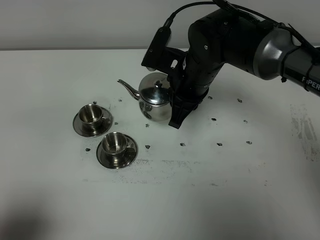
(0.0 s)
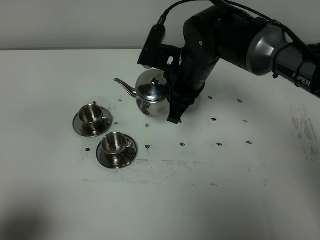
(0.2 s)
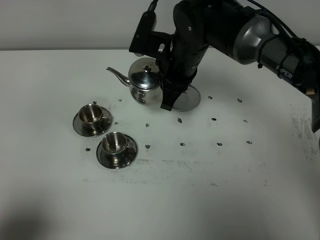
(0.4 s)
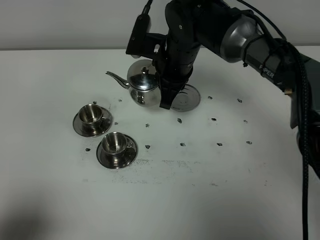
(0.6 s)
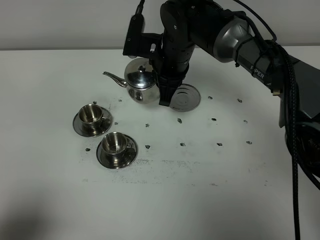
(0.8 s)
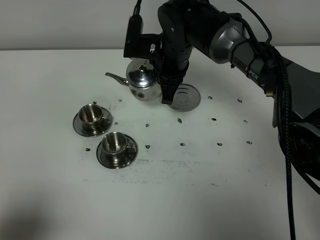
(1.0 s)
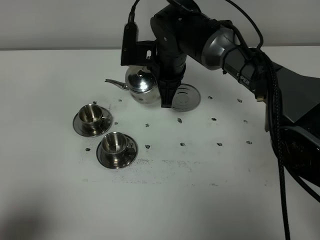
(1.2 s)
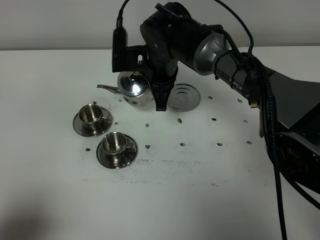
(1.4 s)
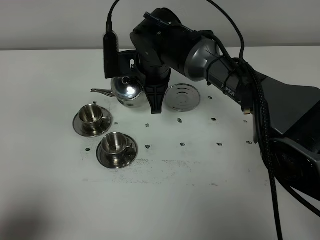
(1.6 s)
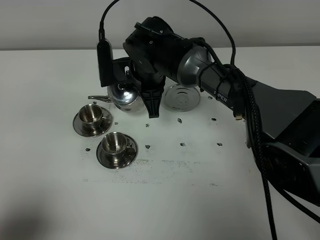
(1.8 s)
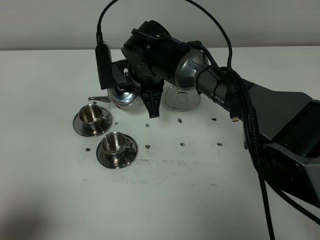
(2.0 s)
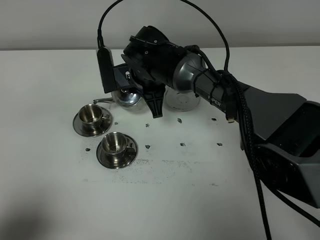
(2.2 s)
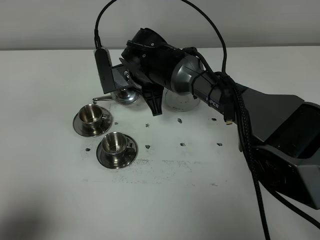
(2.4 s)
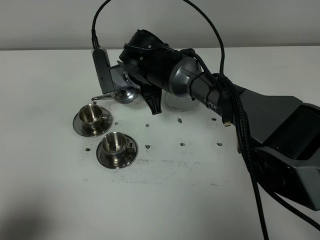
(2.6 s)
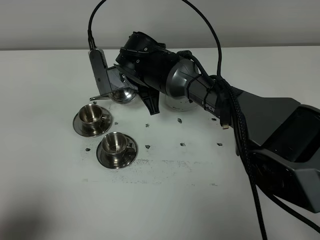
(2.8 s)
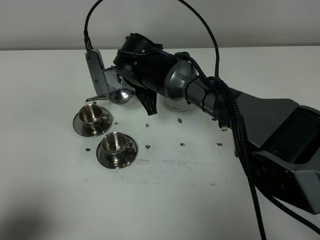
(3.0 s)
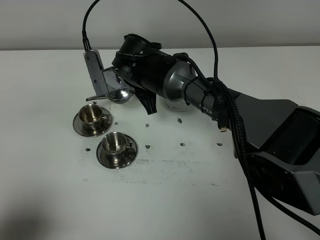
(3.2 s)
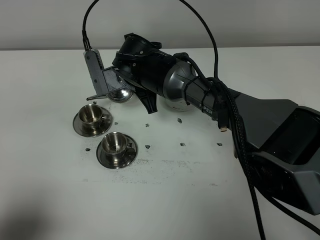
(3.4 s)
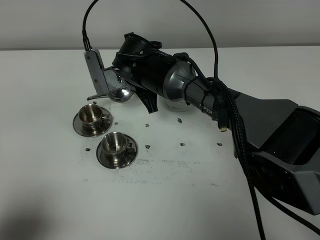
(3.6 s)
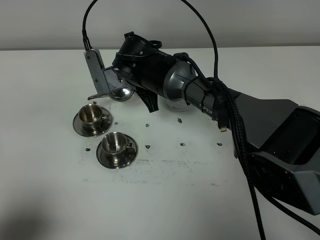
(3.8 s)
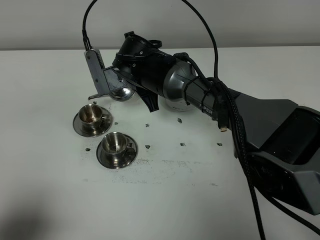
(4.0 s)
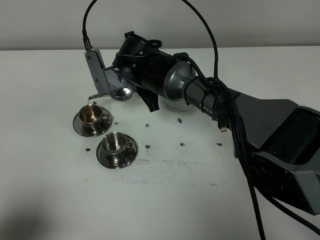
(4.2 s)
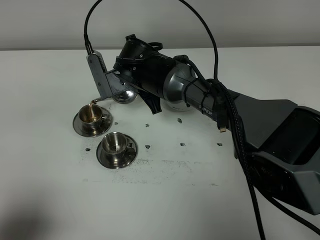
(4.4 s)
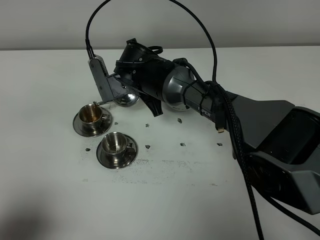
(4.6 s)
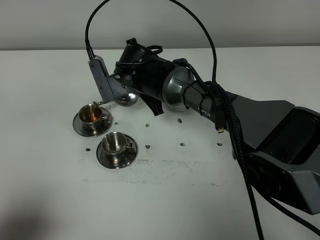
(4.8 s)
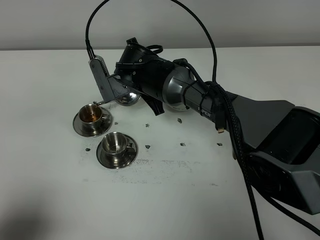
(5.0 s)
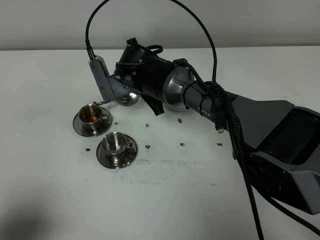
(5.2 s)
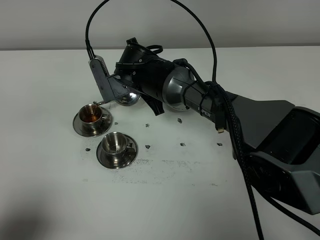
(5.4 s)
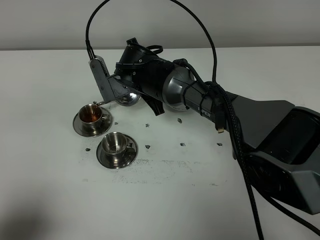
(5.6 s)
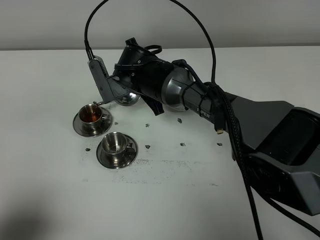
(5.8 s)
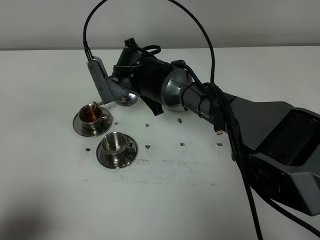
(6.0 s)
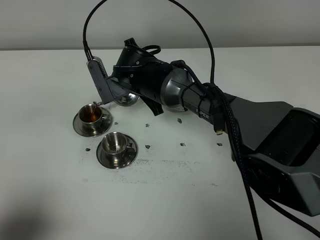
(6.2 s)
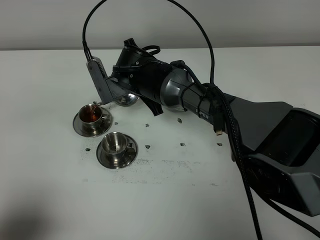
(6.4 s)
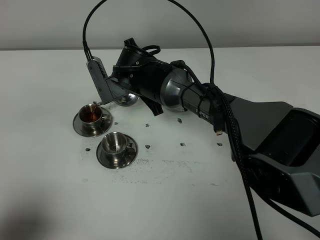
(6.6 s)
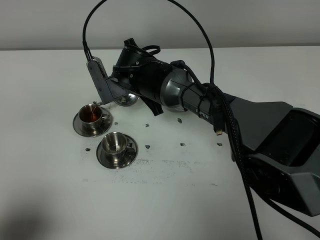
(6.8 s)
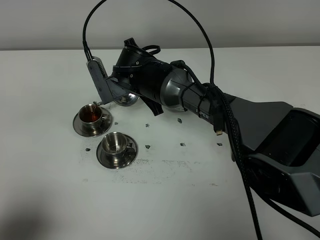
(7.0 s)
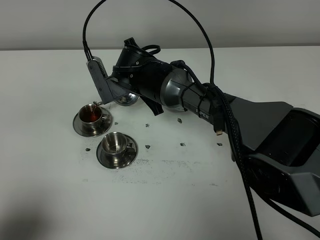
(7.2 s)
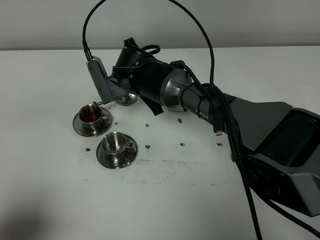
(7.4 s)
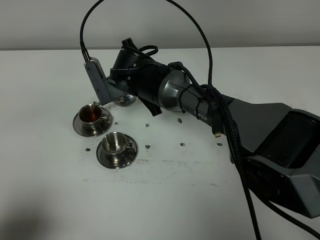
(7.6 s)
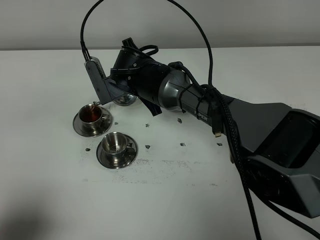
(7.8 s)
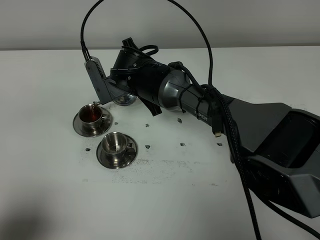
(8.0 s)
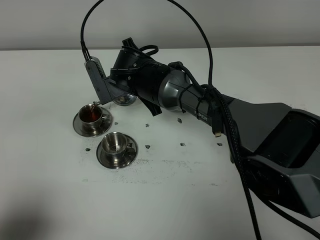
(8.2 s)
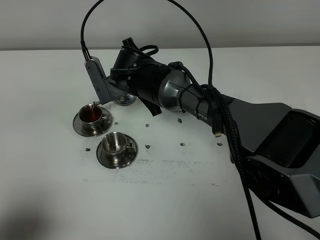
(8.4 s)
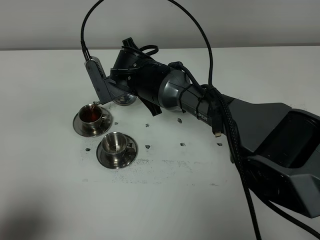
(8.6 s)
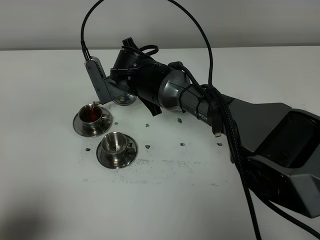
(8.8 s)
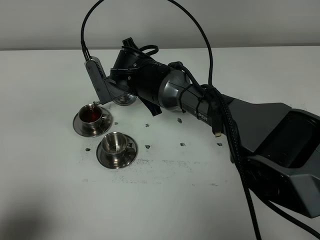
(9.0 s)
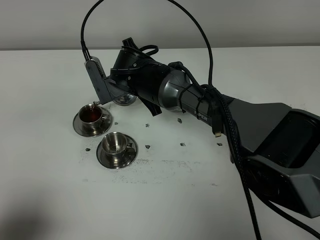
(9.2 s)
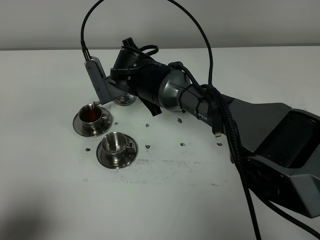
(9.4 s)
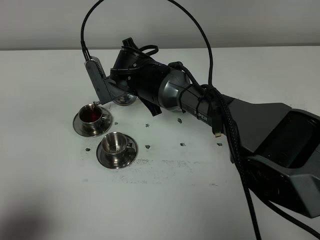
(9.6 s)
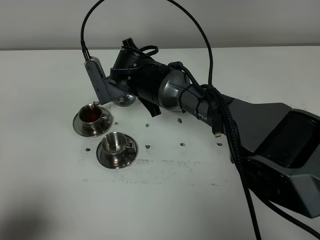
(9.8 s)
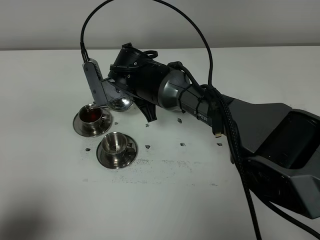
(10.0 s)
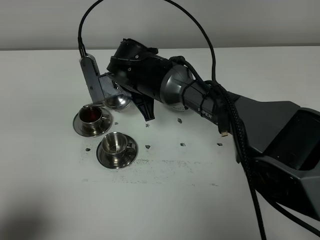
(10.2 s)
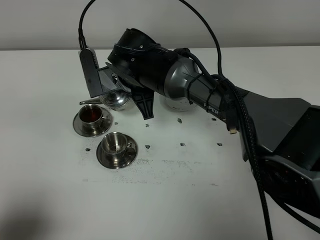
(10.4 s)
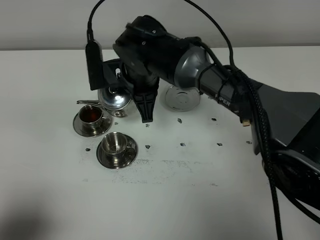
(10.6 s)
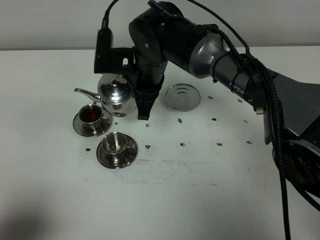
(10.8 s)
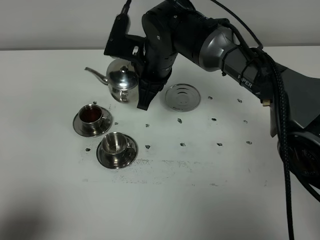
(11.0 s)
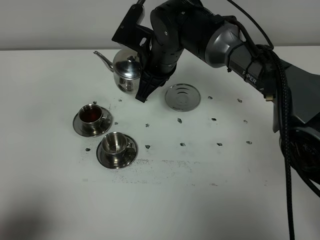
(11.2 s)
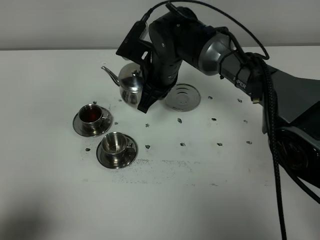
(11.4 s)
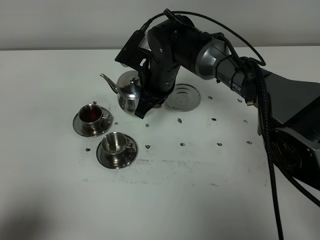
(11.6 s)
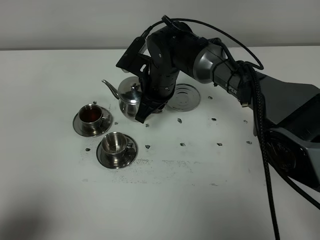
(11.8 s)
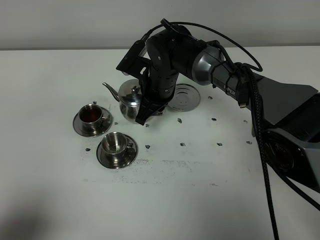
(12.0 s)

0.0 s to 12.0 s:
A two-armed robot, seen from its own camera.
Task of the whole recording: grasp the stainless steel teapot and pour the tea into the two stainless steel teacups one by one, put the stainless steel teapot back in its original place.
0.0 to 1.6 s: The right gripper is displaced to the left by some 5 cm.
3.0 to 4.4 s: Neither gripper changes place.
4.4 to 9.0 s: Neither gripper changes place.
9.0 to 10.4 s: The grippers make only small movements.
10.4 to 12.0 s: The right gripper heads downward, covering roughly 5 cm.

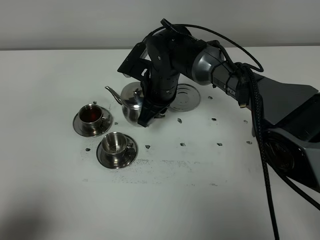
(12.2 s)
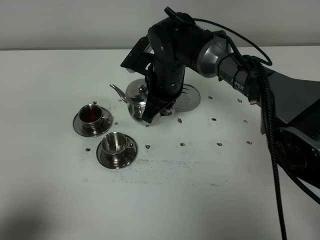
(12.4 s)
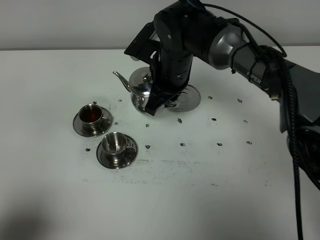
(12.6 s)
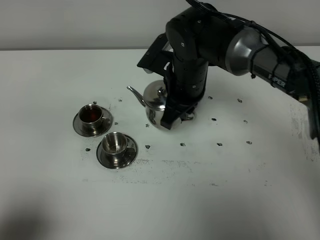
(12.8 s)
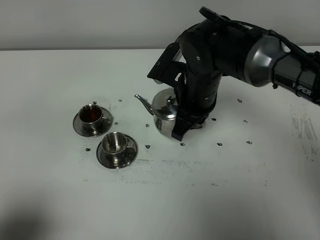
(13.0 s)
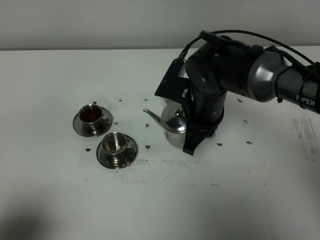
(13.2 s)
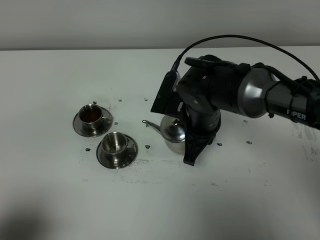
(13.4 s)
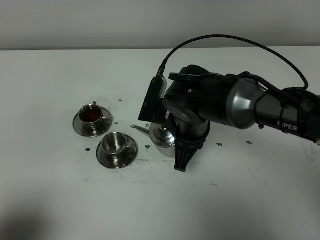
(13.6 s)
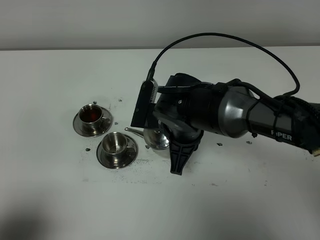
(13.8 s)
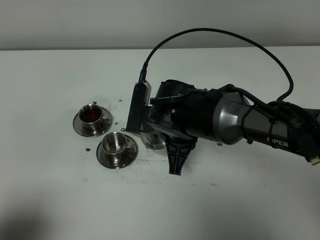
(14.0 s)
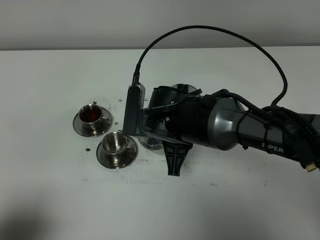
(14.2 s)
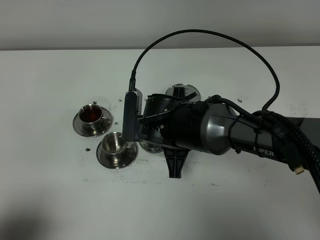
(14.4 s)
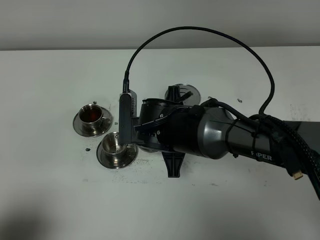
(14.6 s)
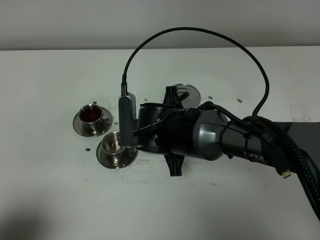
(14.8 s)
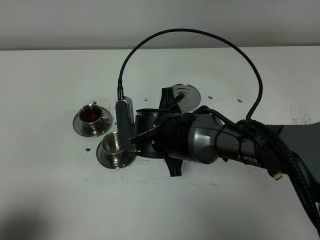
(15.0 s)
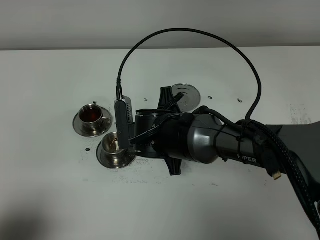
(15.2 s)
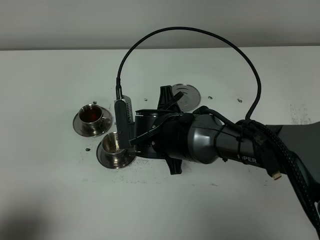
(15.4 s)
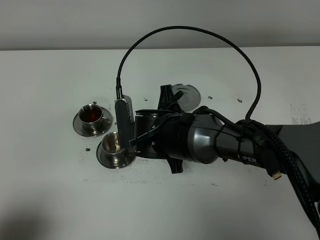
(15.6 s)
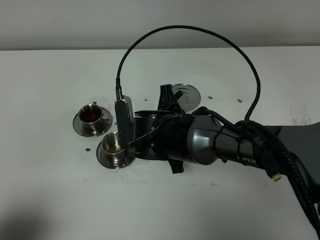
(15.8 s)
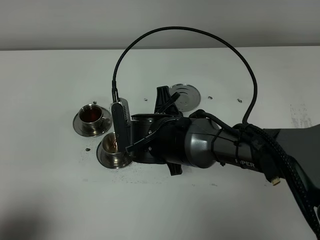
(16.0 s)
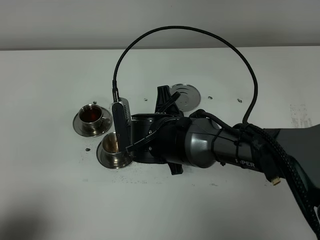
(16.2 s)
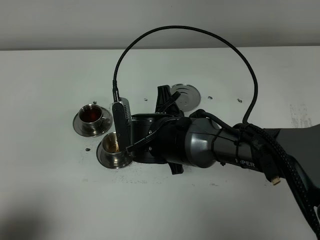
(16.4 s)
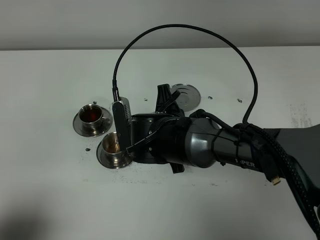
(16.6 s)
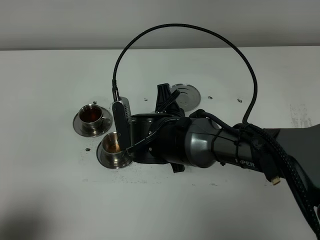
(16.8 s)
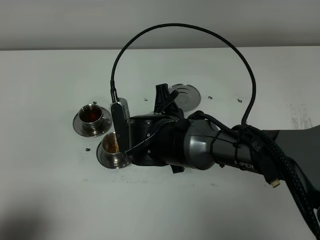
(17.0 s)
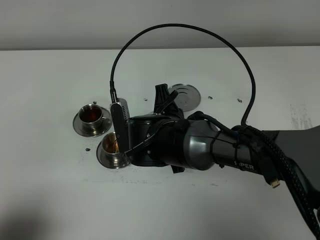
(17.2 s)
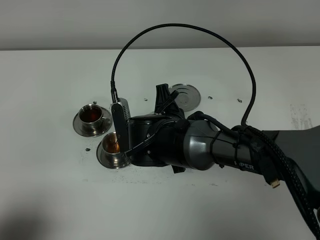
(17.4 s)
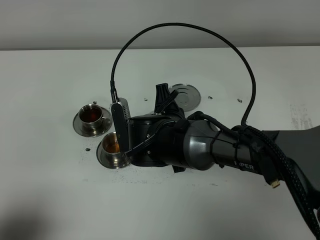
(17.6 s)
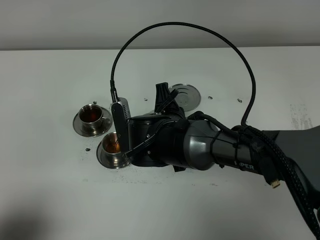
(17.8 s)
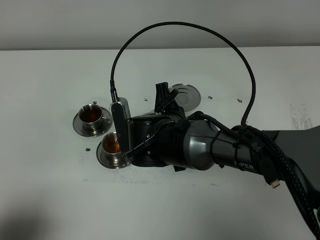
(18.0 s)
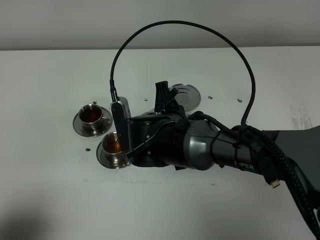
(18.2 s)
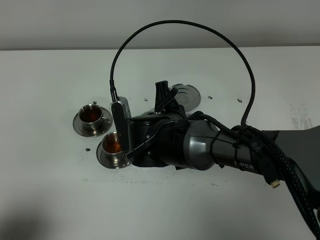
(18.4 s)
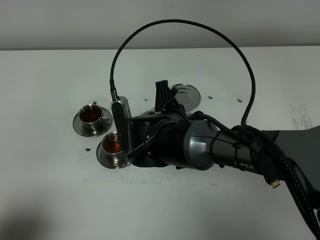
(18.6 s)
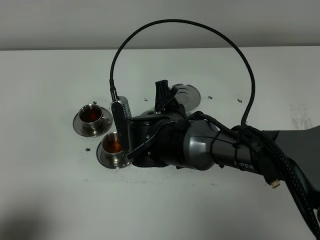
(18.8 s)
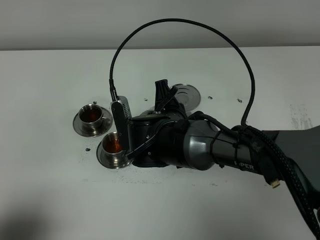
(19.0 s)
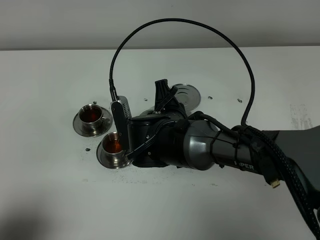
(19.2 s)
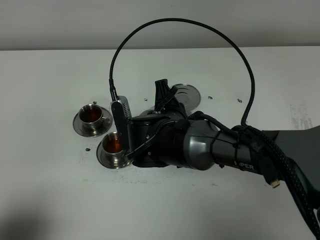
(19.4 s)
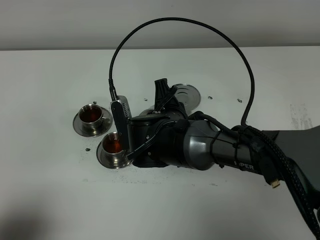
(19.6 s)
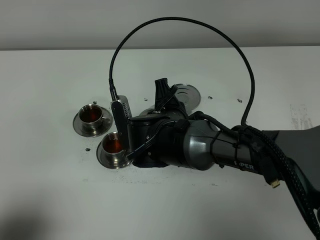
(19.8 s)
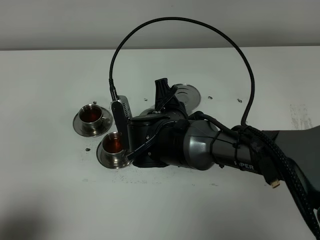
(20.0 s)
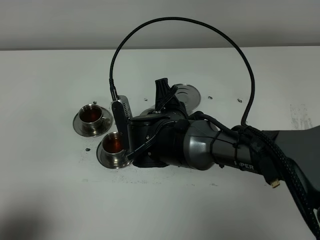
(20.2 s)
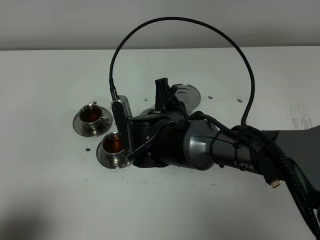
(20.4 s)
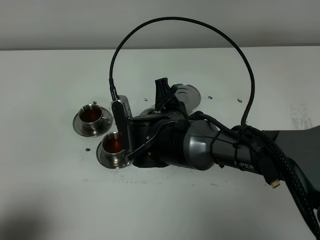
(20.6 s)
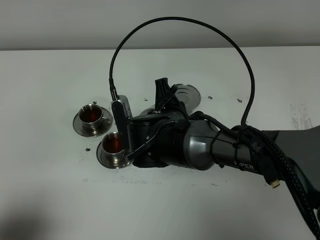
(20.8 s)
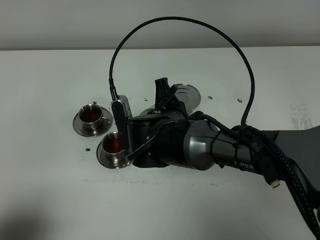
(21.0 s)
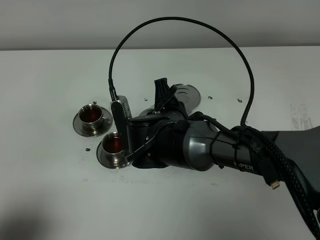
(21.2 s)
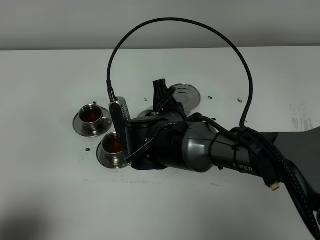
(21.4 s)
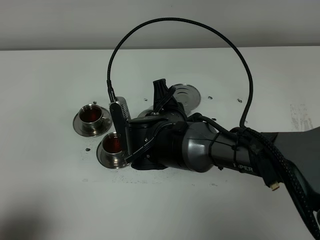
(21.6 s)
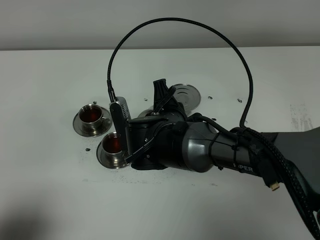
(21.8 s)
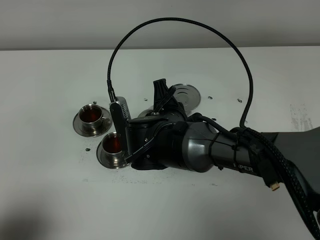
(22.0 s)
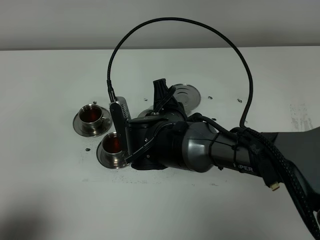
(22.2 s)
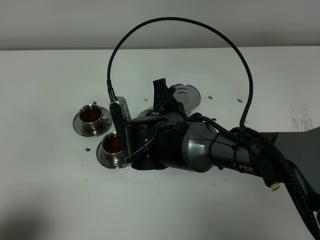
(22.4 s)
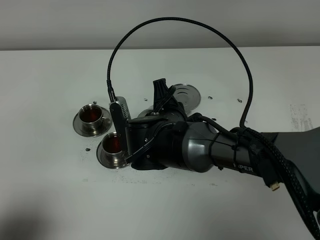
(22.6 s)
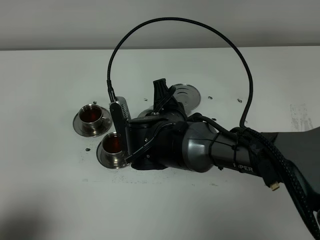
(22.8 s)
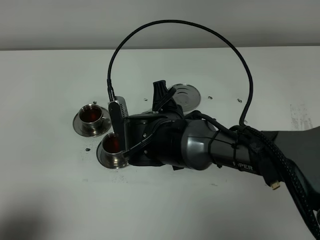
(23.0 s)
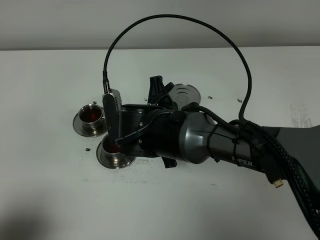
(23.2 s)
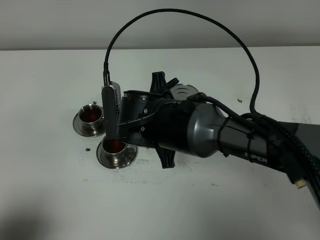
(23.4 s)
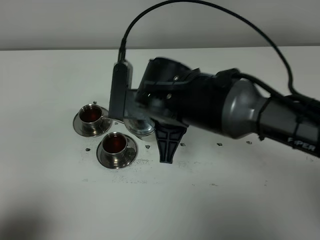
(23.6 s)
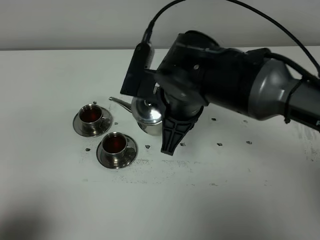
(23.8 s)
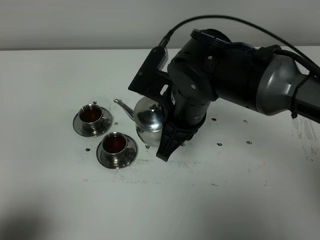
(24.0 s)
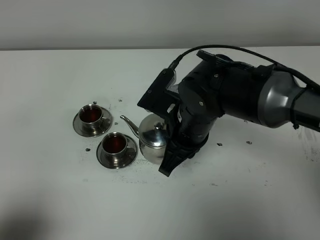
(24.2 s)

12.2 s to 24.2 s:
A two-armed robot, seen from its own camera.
Task of the whole recording: grasp the stainless steel teapot and pour the tea into the two stainless steel teacups one by one, put the stainless steel teapot back in its original place.
Step, 12.2 to 23.0 s: Pour tea into the teacup with the right gripper.
12.2 to 13.8 s: The right gripper shifts some 10 cm backward.
15.2 to 16.6 s: The grippers stay close to where they were, moving slightly.
16.6 to 18.2 s: Neither gripper changes place.
18.2 to 22.6 s: Neither gripper changes place.
